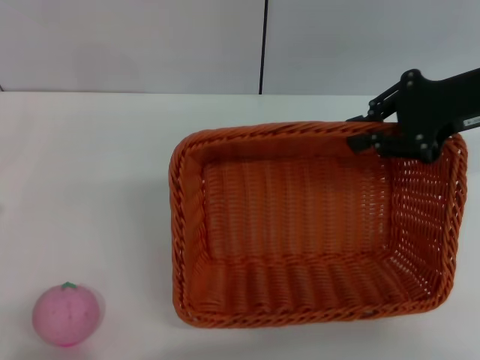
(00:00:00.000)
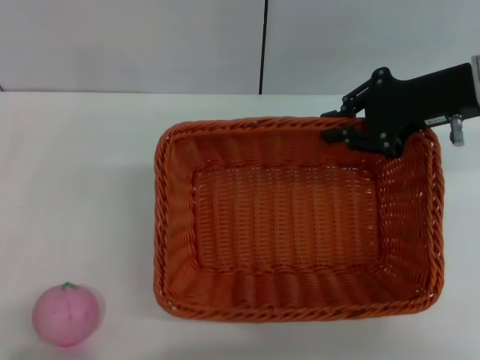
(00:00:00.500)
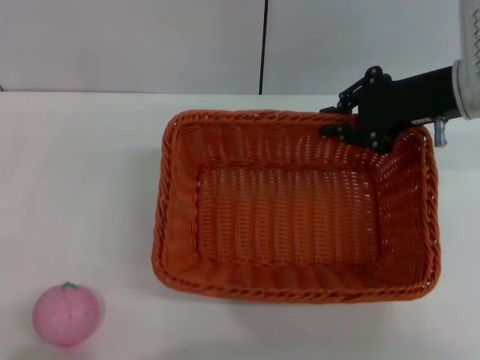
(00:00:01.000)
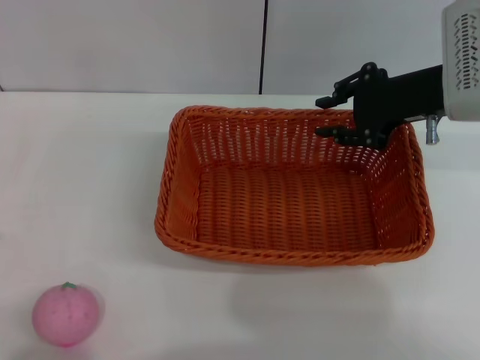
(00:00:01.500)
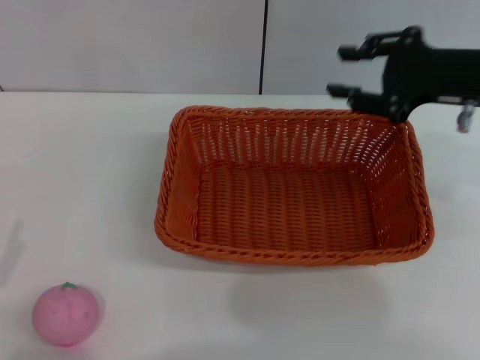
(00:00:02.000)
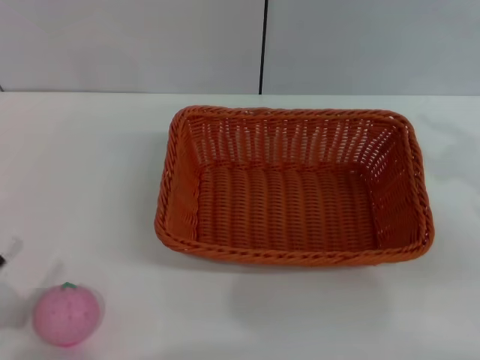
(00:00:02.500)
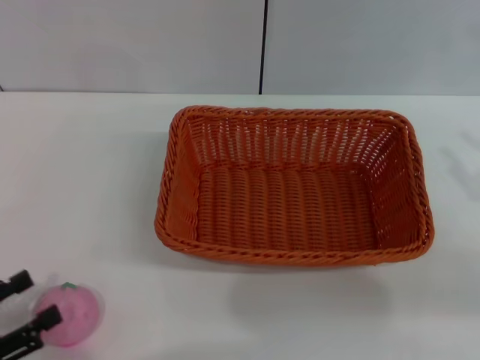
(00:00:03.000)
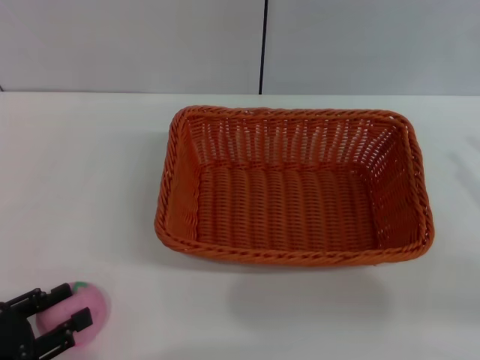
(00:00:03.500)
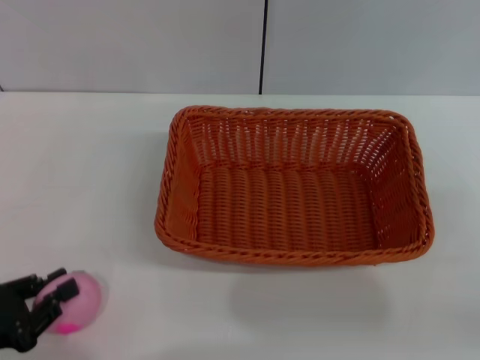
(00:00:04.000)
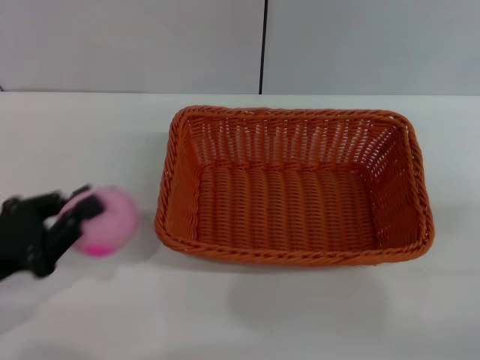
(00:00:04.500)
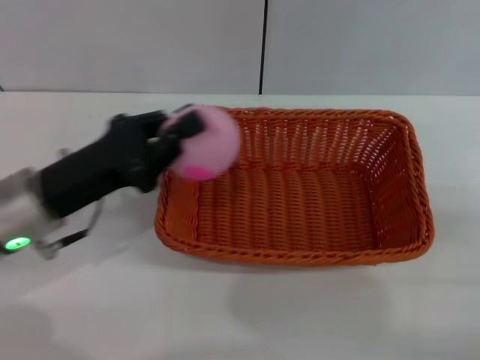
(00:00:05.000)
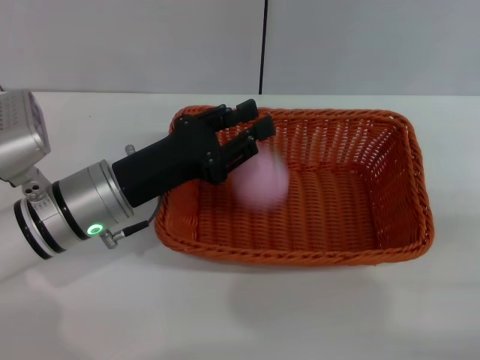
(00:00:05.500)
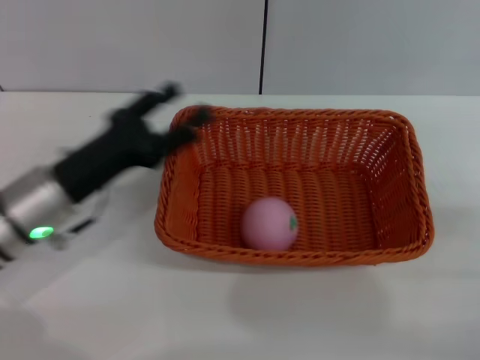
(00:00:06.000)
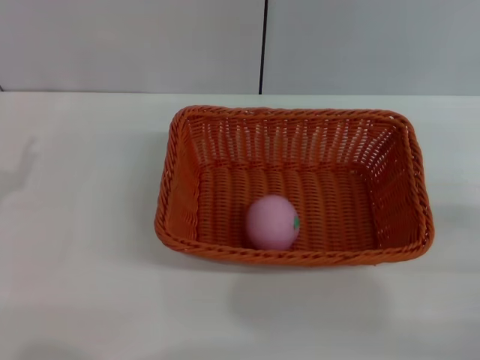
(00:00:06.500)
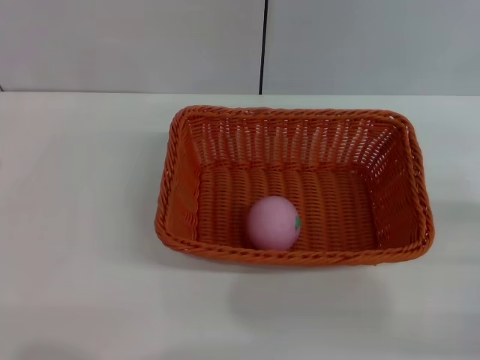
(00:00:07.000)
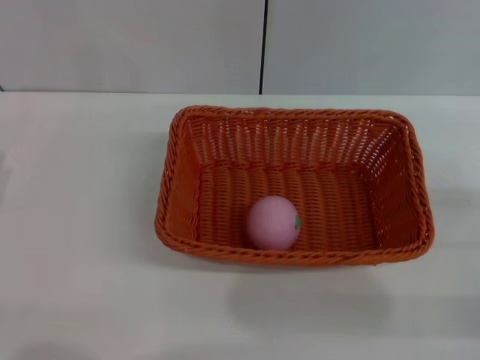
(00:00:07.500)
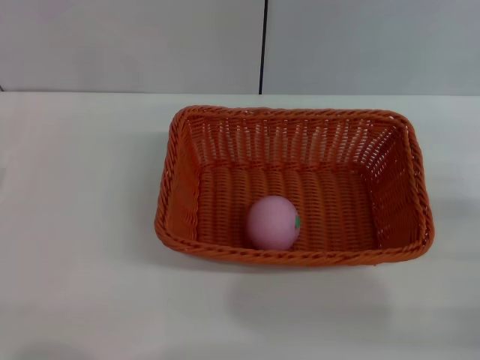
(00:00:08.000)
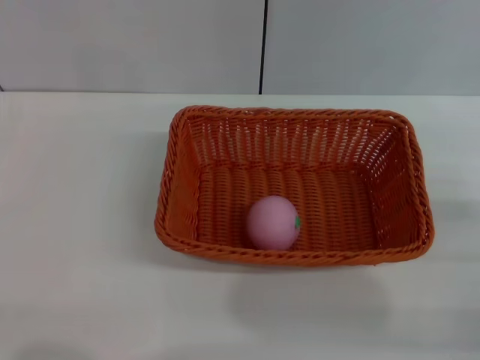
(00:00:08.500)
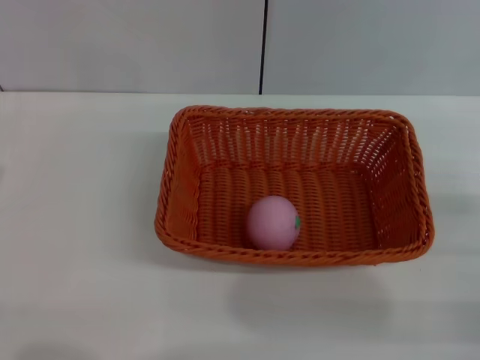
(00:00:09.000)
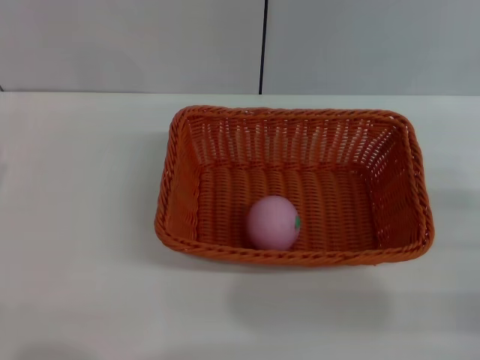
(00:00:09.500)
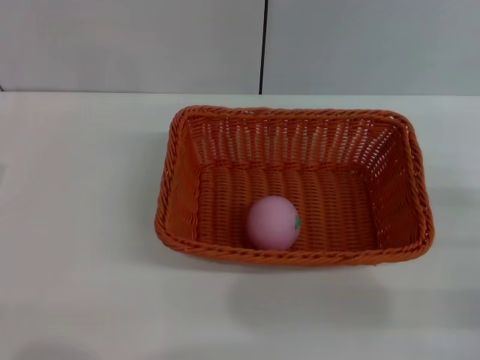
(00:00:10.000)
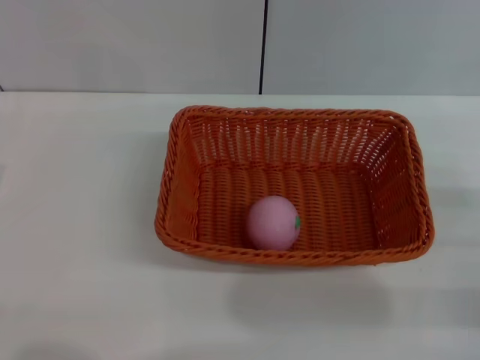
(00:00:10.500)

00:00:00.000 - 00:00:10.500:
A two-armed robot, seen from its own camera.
Step, 00:00:00.000 - 00:00:02.000: Place the light basket in the center of view with the right gripper.
Step, 00:00:02.500 - 00:00:04.000: Pick up the peach with the left gripper.
Step, 00:00:04.500 - 00:00:05.500: Place the peach into the basket with the left gripper.
00:00:00.000 - 00:00:02.000: The right gripper opens its fingers.
00:00:02.000 - 00:00:04.000: The right gripper is displaced backward, to the right and downward by approximately 20 cm. The left gripper closes.
00:00:04.000 - 00:00:06.500: The right gripper shifts by some 5 cm. Meanwhile the left gripper goes approximately 10 cm forward, goes to the right and returns, roughly 15 cm each way, and opens up.
